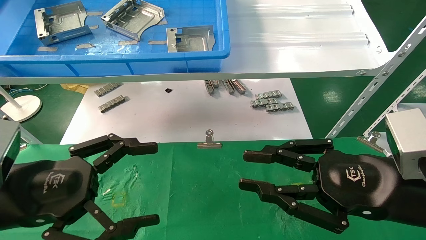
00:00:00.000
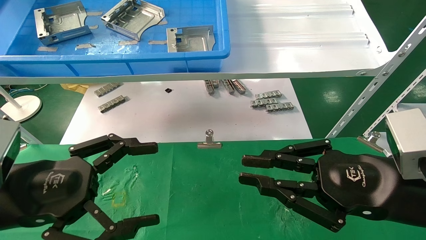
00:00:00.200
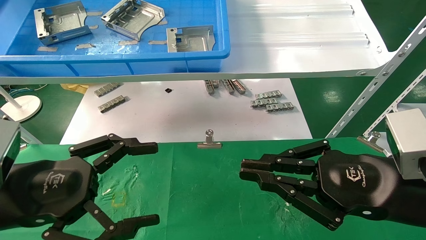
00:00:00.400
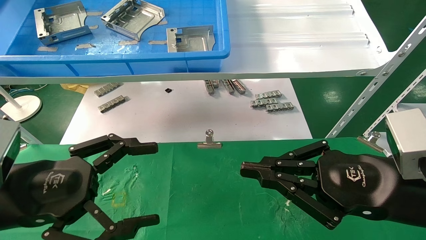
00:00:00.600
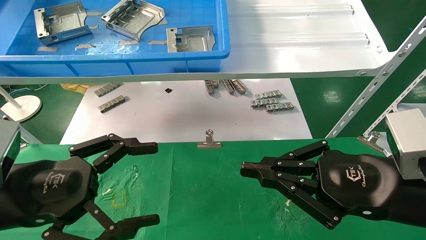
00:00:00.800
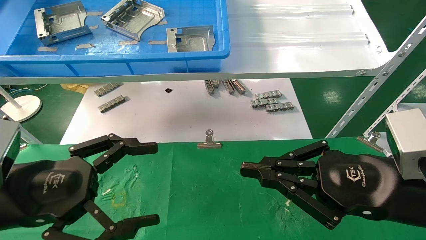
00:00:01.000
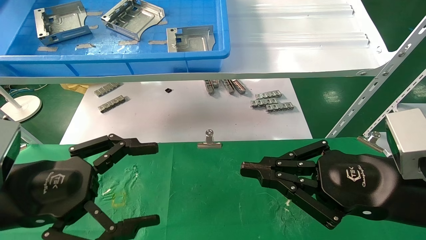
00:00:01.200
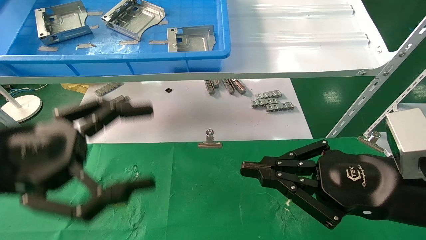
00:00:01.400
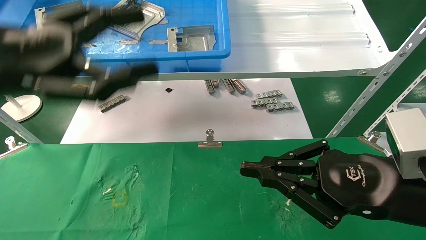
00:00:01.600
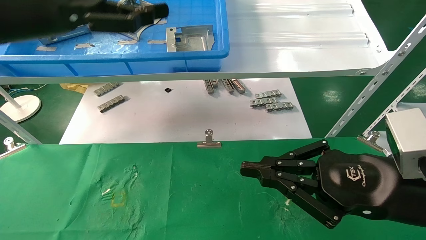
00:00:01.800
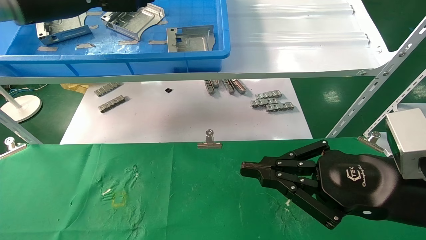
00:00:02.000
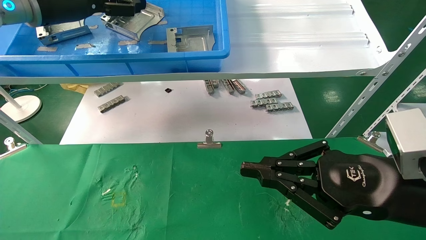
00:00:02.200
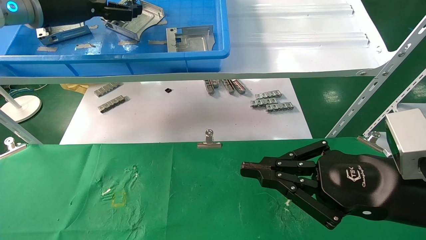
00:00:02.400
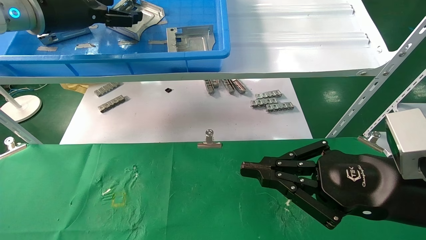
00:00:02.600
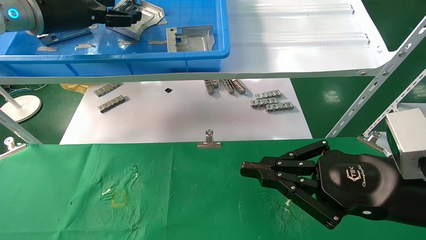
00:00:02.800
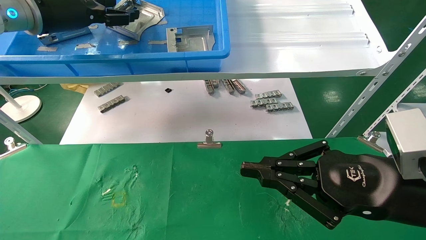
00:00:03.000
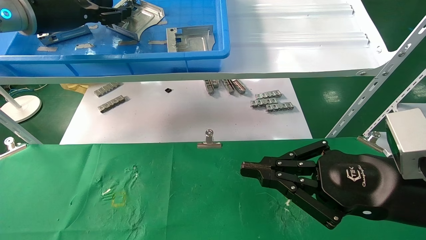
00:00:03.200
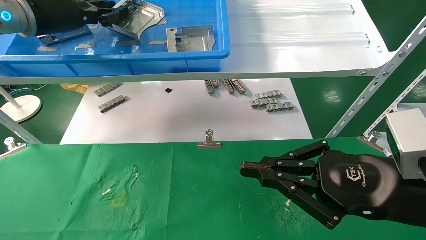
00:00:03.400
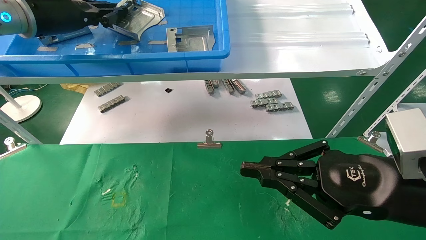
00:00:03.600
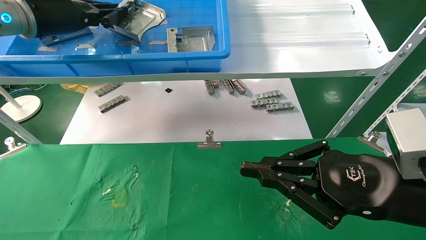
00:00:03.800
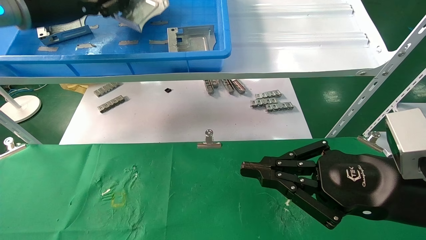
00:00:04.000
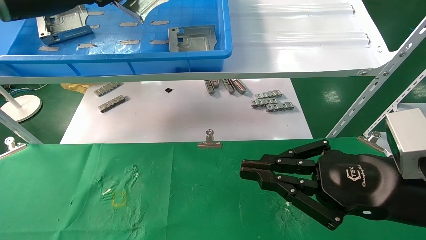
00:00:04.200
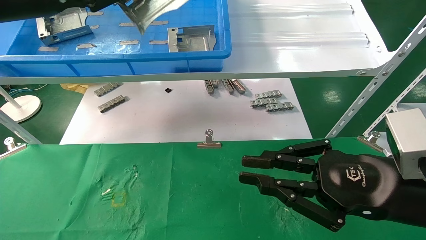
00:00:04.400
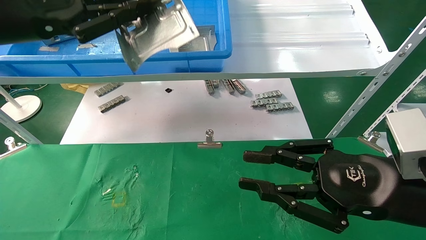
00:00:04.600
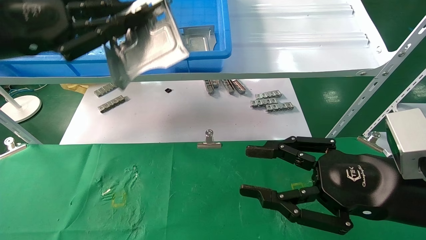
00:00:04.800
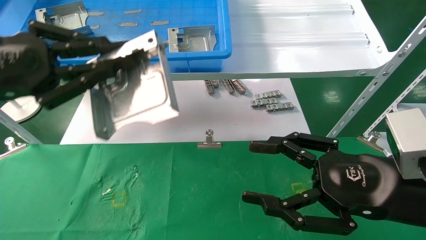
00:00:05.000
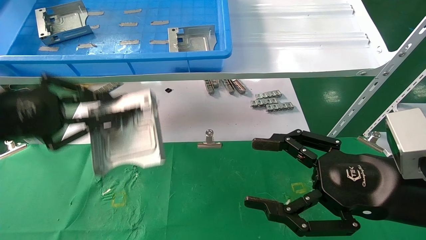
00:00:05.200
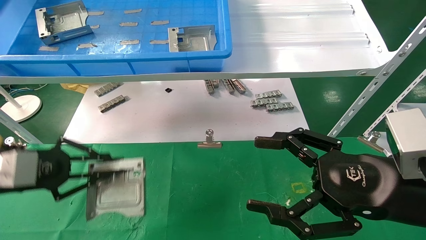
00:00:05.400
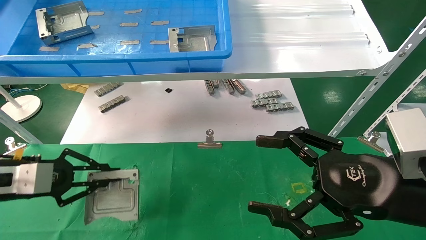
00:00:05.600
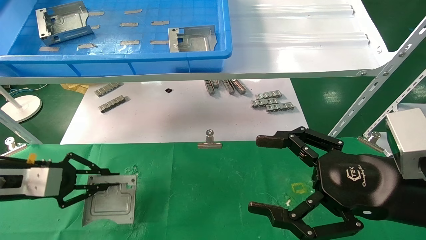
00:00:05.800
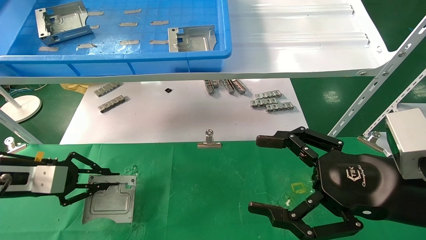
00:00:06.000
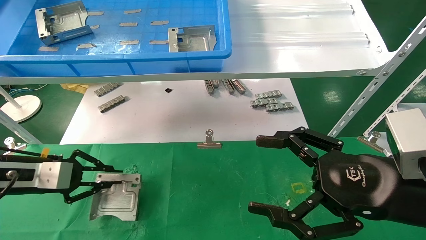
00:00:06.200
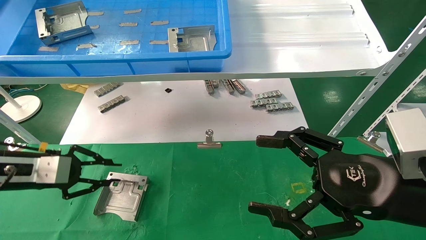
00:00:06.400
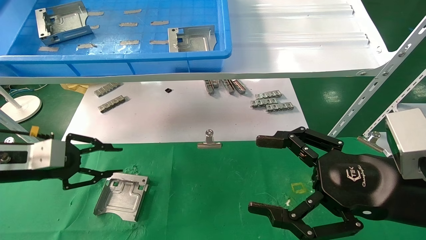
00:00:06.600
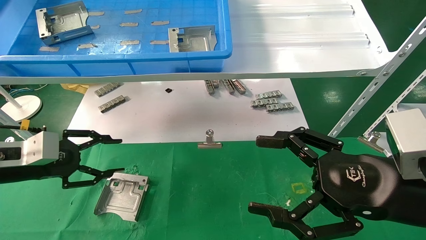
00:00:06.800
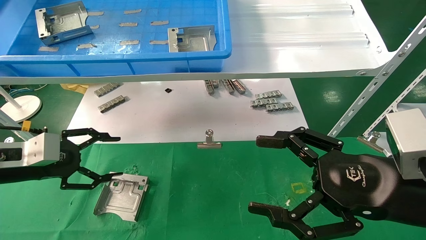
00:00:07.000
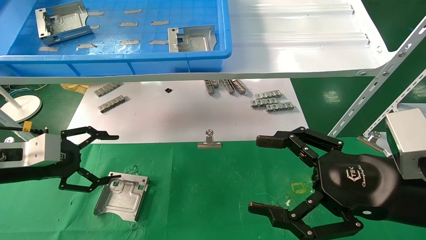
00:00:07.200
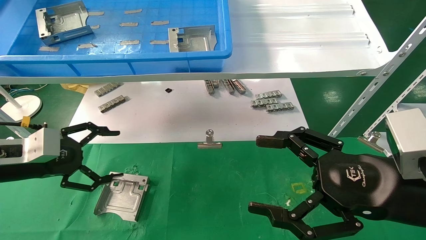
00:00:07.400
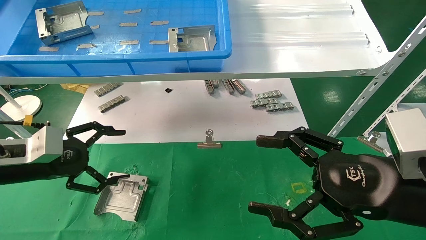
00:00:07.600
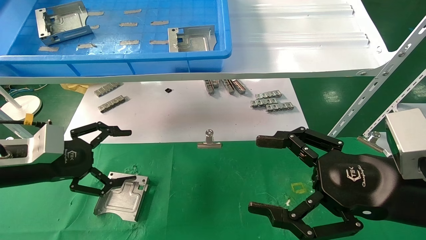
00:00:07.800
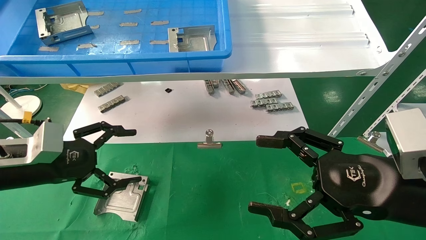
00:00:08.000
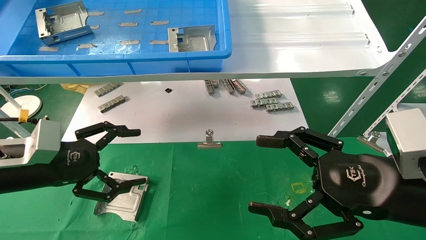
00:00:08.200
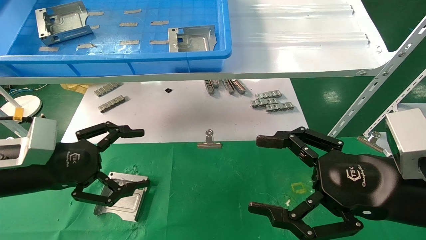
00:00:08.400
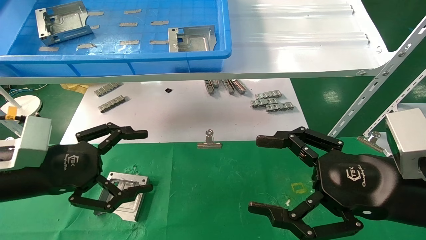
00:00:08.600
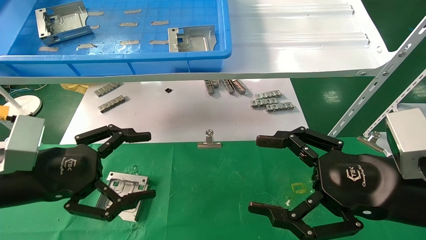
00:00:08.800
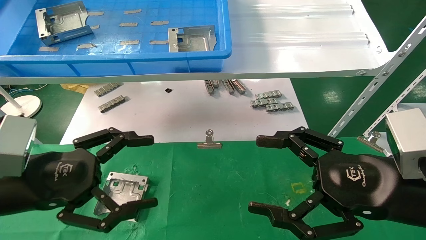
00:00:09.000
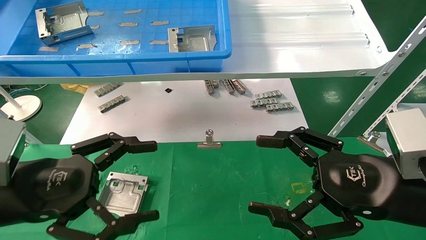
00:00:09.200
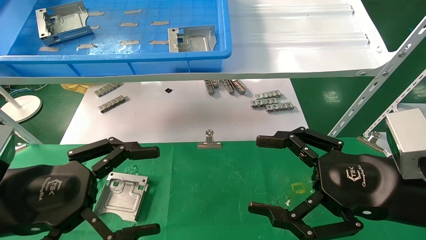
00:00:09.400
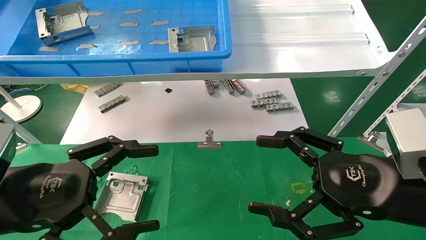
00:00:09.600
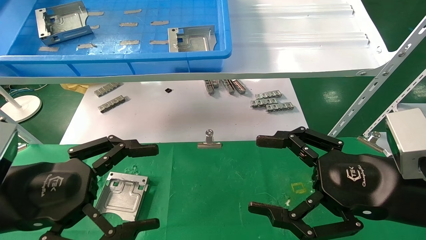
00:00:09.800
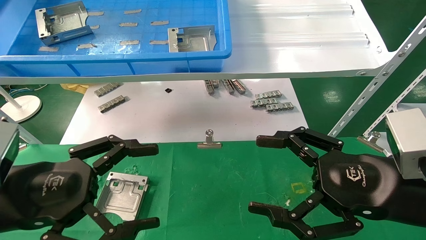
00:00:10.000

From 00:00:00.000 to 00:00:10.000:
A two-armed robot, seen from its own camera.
Task of the whole recording: use the mechanical arm to pick up the parts and place them on the table.
Step, from 00:00:01.400 to 00:00:03.600: Pick up the hard drive bracket from the feeding area.
Step, from 00:00:03.800 to 00:00:06.800: Place the hard drive bracket into the box.
From 00:00:00.000 to 00:00:01.400: The right gripper closes up; the left gripper is displaced upward by some 5 cm.
From 00:00:01.400 to 00:00:02.800: The left gripper moves forward and upward, about 25 cm.
From 00:00:02.800 to 00:00:04.200: The left gripper shifts approximately 5 cm backward, and closes up.
From 00:00:04.200 to 00:00:05.800: The left gripper is displaced downward by about 25 cm; the right gripper opens.
From 00:00:05.800 to 00:00:07.200: The left gripper opens.
From 00:00:07.200 to 00:00:08.600: The left gripper heads to the right and backward, covering about 10 cm.
From 00:00:08.600 to 00:00:10.000: The left gripper shifts roughly 5 cm backward.
